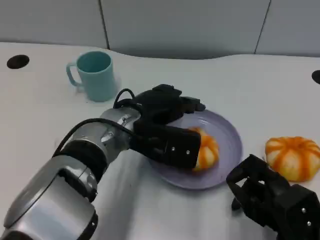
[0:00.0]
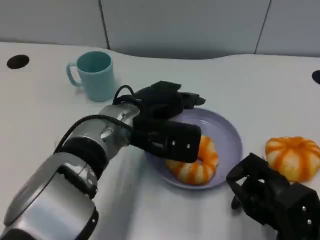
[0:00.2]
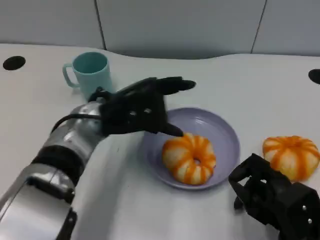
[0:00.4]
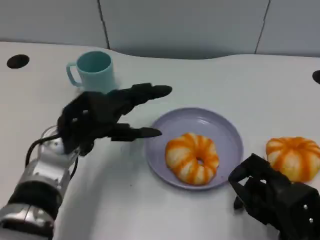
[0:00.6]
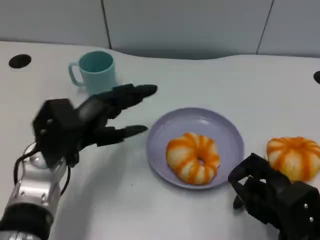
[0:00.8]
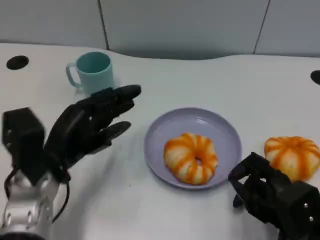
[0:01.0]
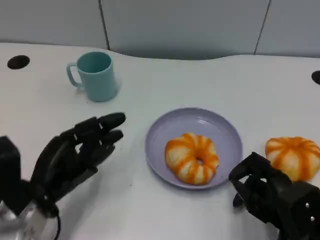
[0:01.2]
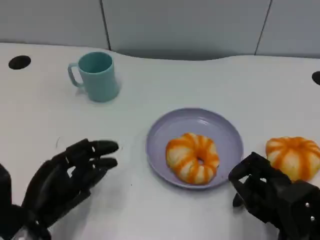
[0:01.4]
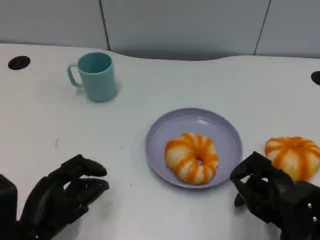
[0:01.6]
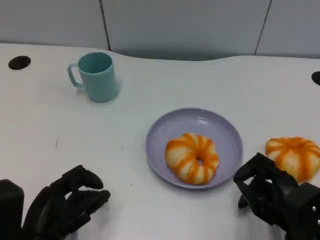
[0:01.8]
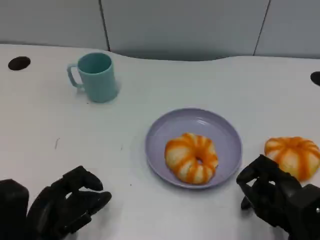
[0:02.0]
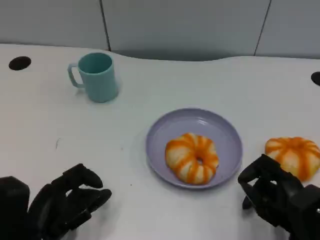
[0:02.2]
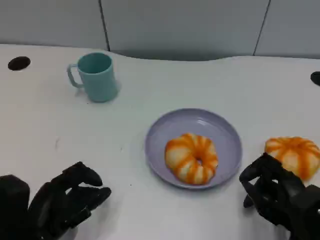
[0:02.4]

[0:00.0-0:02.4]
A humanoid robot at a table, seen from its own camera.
Task of the whole recording: Grasp the bread from the table and place it into the plate.
0:00.0 to 0:01.2: The left hand moves to the left, backward and downward, about 20 cm.
0:01.2 to 0:02.4: The hands make only small movements.

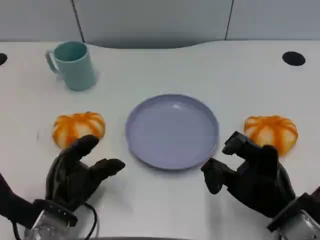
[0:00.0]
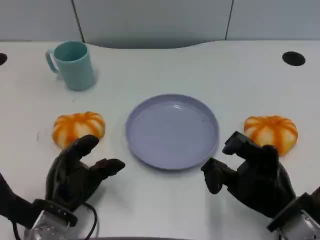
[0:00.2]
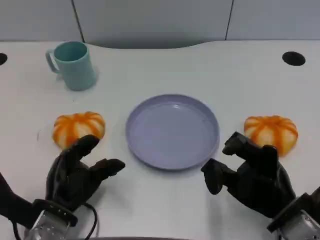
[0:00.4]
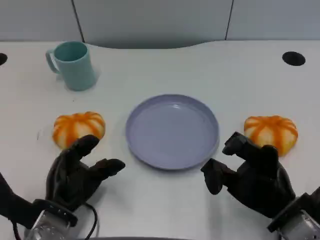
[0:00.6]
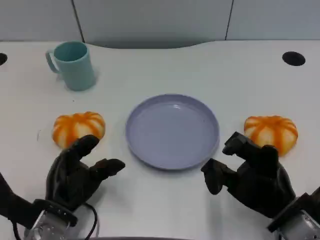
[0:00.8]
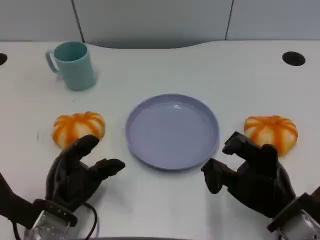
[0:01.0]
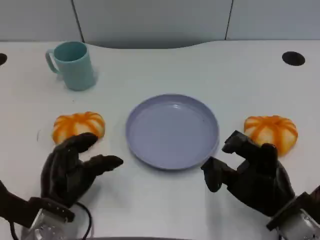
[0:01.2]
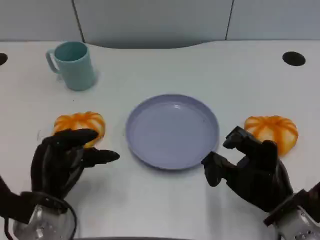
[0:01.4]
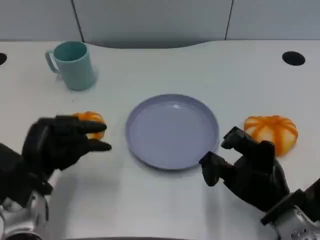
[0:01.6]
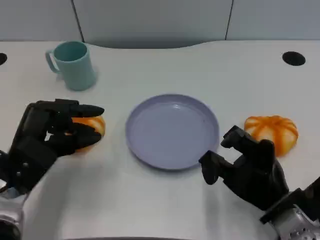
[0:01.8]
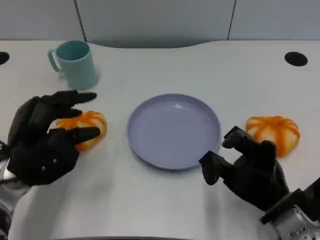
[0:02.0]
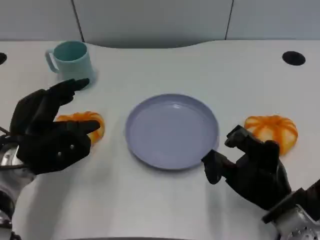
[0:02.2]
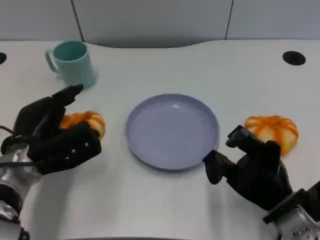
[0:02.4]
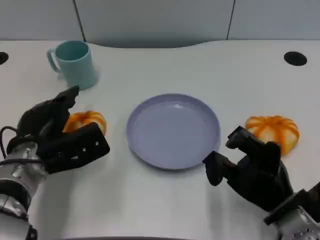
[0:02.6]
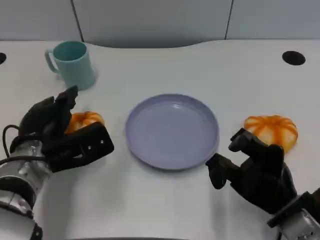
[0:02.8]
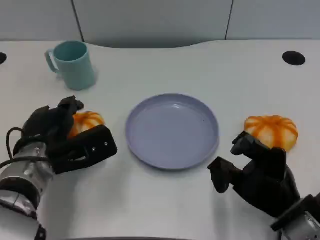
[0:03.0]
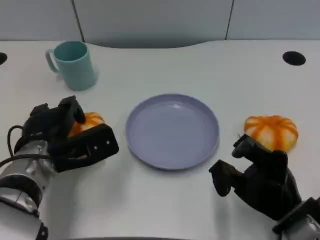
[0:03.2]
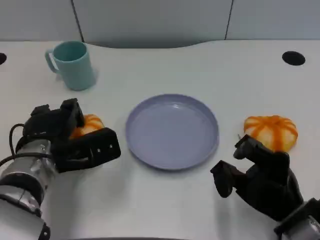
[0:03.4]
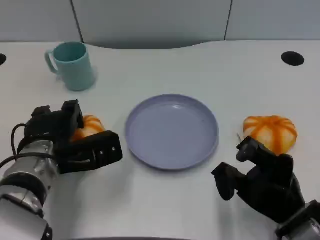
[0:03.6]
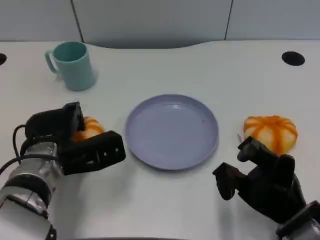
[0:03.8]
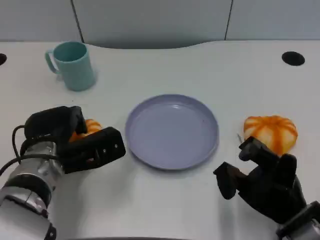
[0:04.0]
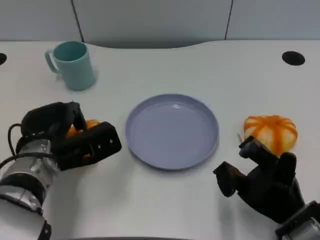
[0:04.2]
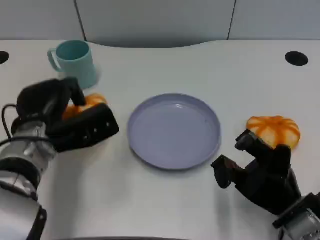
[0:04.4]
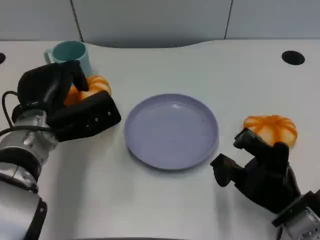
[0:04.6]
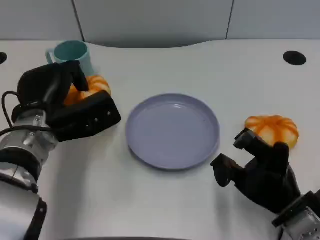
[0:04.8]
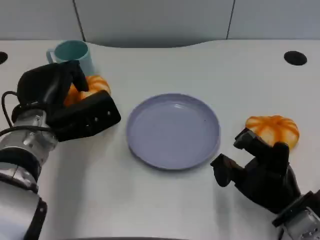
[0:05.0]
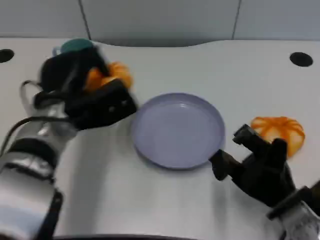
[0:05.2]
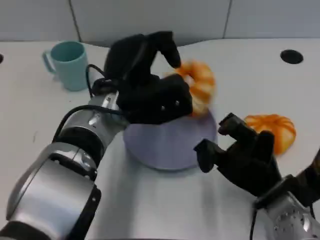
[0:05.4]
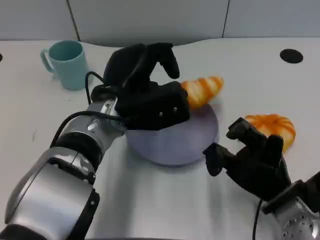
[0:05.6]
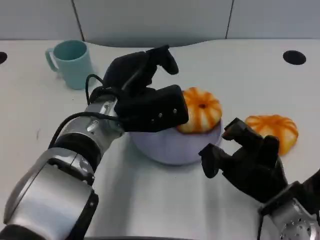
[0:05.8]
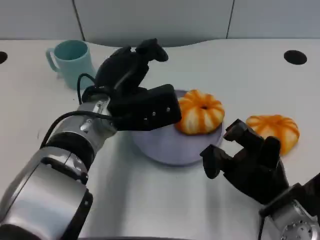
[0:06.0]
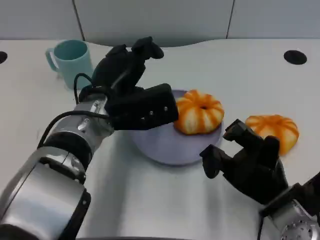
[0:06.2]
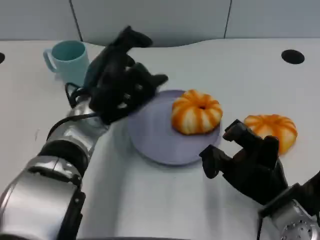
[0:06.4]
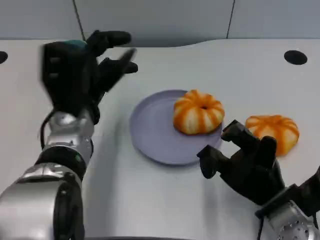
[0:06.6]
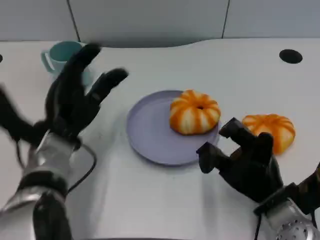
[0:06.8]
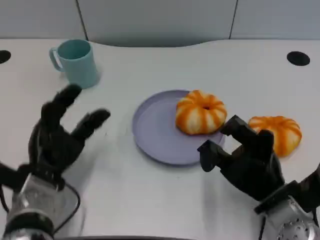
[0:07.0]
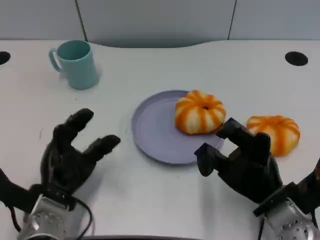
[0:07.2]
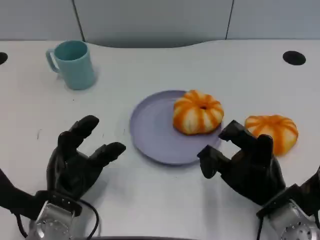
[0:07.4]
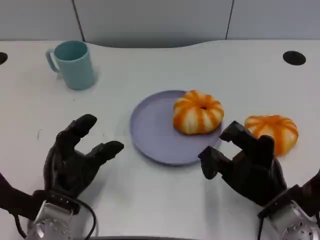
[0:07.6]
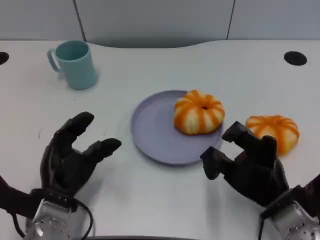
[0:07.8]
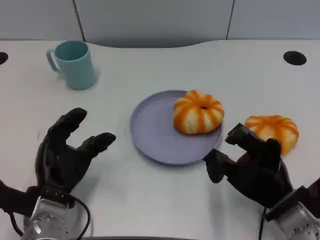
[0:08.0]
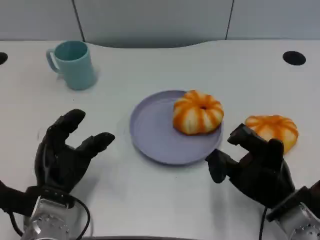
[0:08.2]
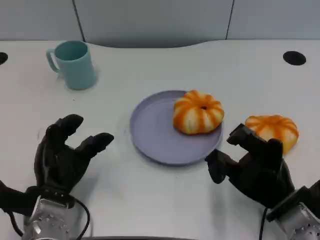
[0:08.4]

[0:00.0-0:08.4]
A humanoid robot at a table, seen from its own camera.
Task of the whole recording: Grasp the bread from the table and place it into the plate.
0:01.4 to 0:02.8: The left hand is displaced forward by about 5 cm.
0:02.8 to 0:04.2: The hands move only a little.
0:04.2 to 0:05.6: The left hand shifts roughly 15 cm to the right and upward.
0:05.6 to 0:07.0: The left hand goes about 15 cm to the left, downward and backward.

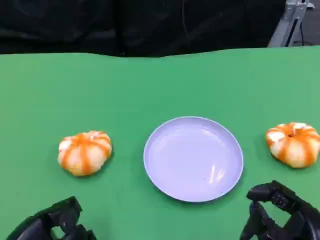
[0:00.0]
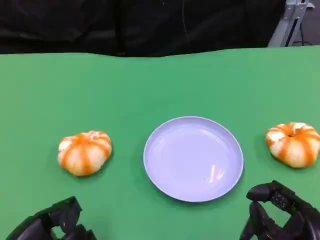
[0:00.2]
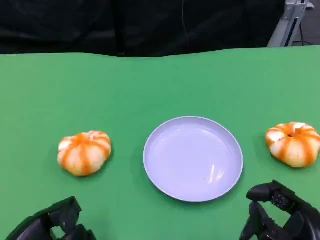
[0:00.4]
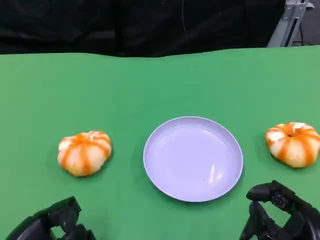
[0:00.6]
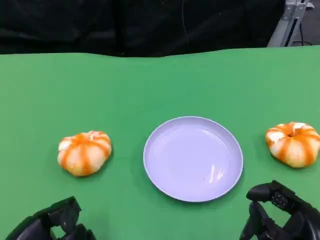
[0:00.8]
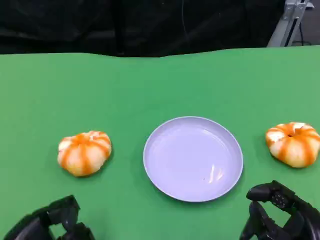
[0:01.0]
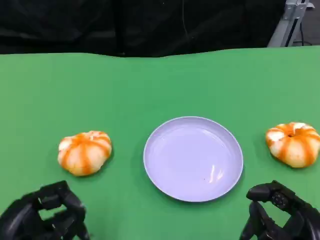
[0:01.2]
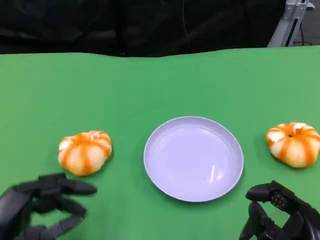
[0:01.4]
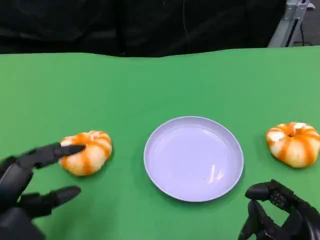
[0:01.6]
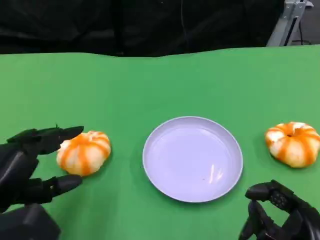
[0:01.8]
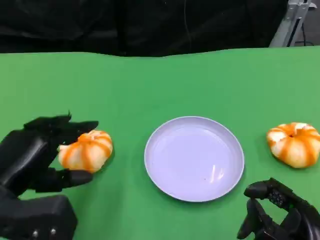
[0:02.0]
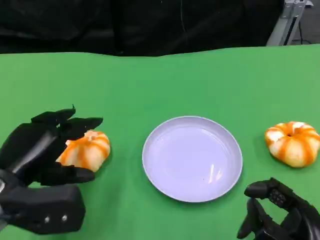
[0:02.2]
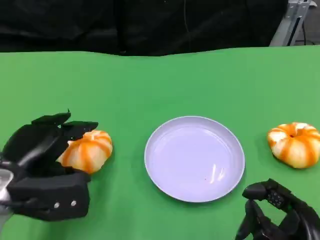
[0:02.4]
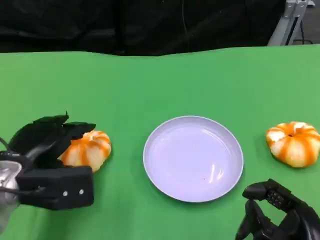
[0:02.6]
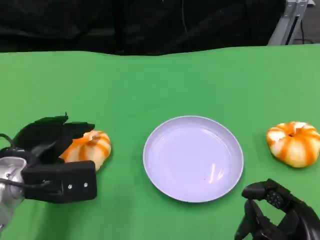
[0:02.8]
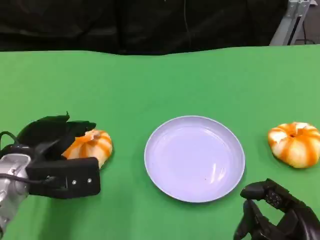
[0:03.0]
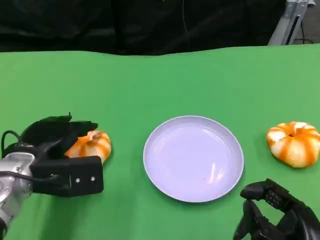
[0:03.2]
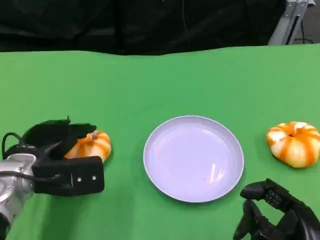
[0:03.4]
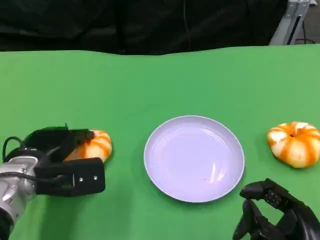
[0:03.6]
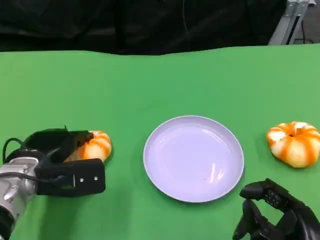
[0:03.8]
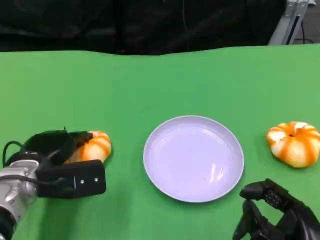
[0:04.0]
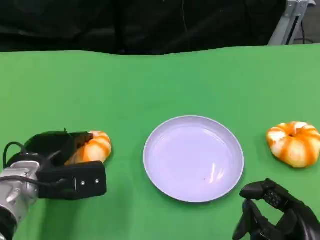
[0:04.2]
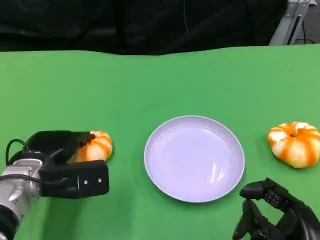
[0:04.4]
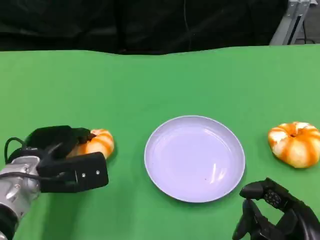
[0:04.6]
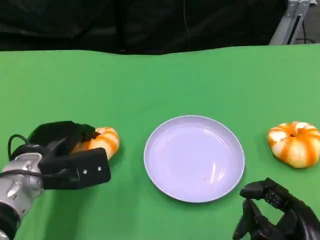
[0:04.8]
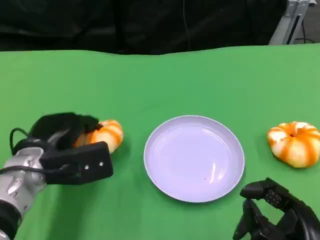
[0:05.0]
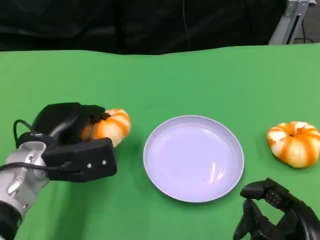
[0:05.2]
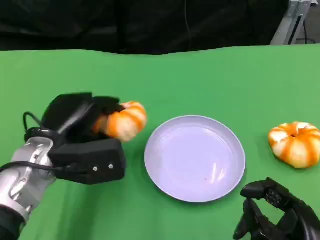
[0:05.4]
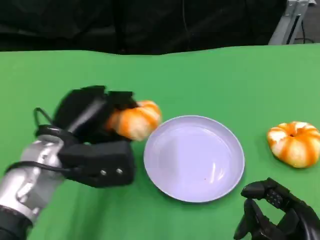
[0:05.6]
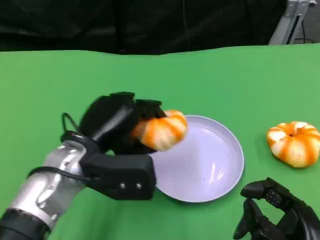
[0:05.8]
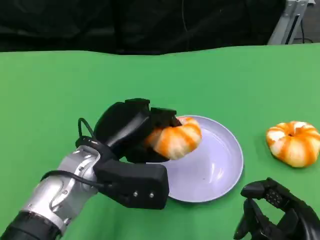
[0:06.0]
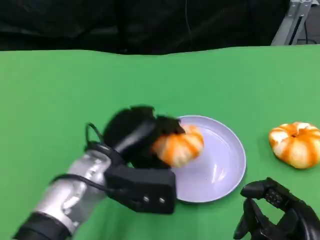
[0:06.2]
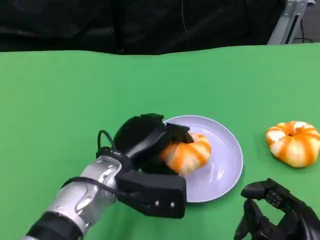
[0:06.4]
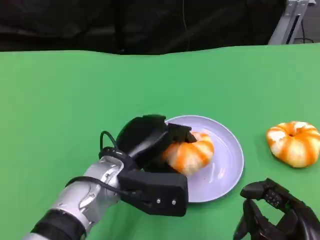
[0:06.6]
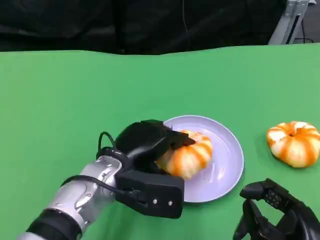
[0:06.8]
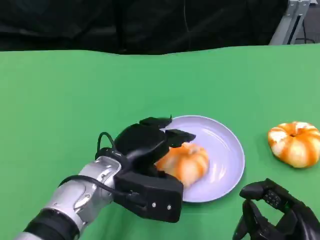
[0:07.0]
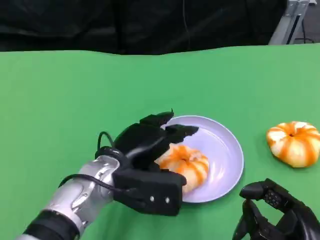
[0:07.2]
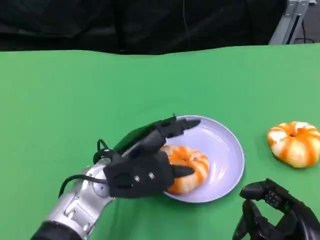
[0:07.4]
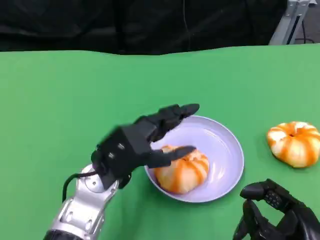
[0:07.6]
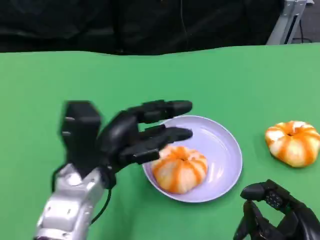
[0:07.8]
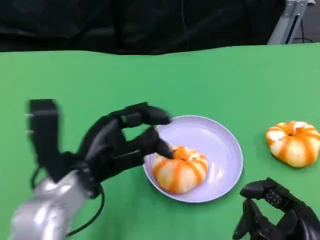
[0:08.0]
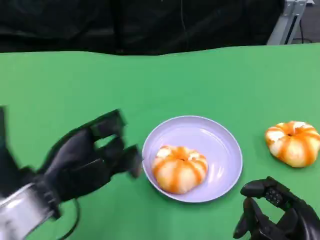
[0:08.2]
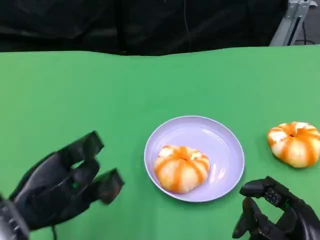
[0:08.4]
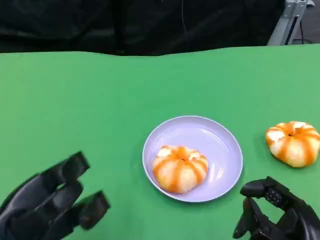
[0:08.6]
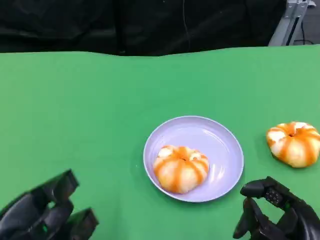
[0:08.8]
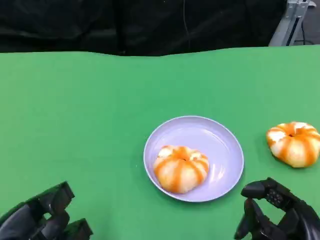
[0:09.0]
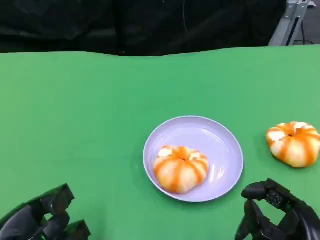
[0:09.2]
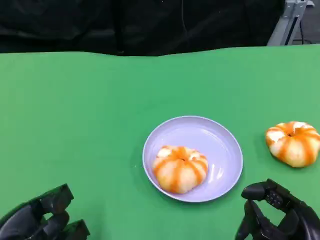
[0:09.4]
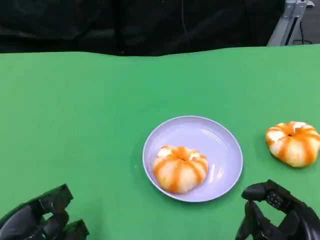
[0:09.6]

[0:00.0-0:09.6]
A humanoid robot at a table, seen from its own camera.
Task of the whole recording: Grasp the bread from the table and place it into the plate.
0:00.0 to 0:01.6: The left hand moves upward, some 5 cm.
0:01.6 to 0:03.2: The left hand shifts about 10 cm forward.
0:03.2 to 0:04.8: The hands move only a little.
0:04.8 to 0:06.4: The left hand is displaced to the right by some 10 cm.
0:06.4 to 0:08.0: The left hand is displaced to the left by roughly 10 cm.
0:08.0 to 0:09.6: The left hand moves to the left, backward and downward, approximately 15 cm.

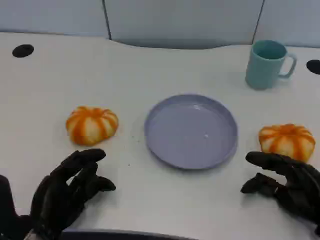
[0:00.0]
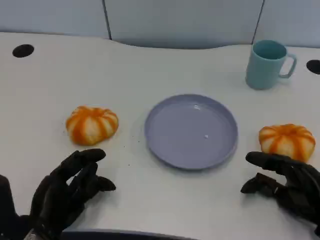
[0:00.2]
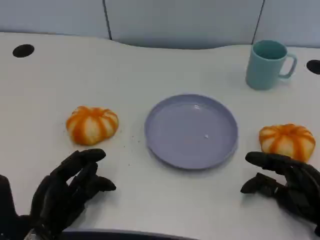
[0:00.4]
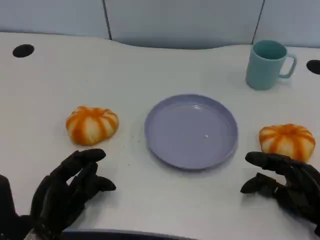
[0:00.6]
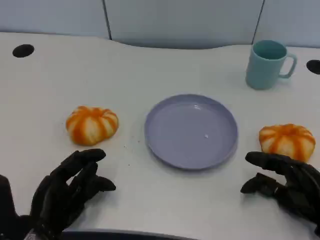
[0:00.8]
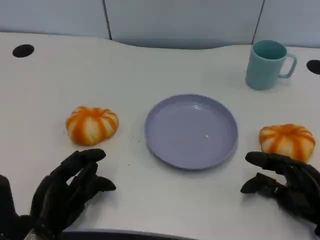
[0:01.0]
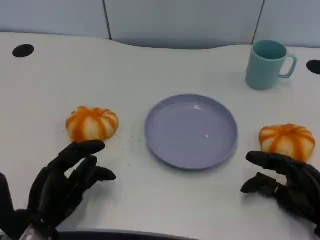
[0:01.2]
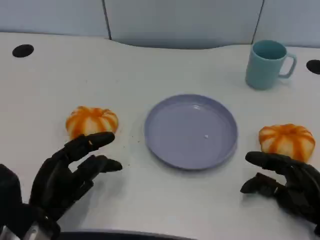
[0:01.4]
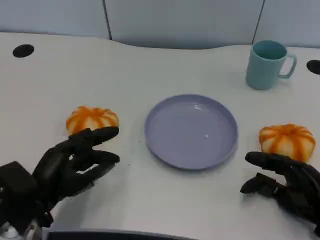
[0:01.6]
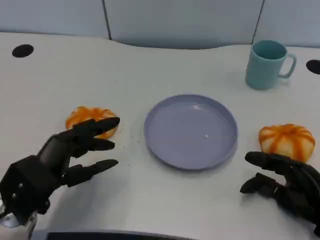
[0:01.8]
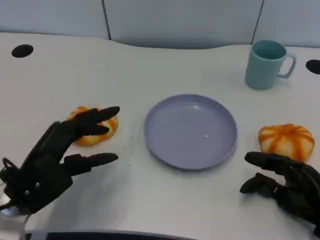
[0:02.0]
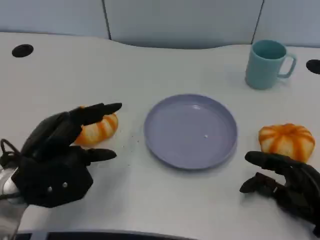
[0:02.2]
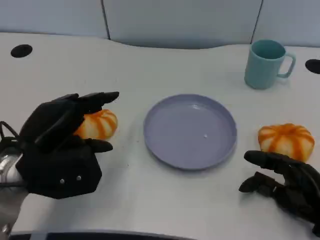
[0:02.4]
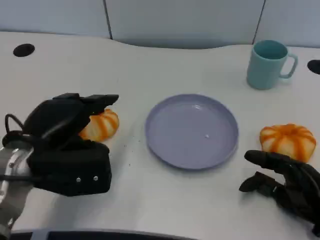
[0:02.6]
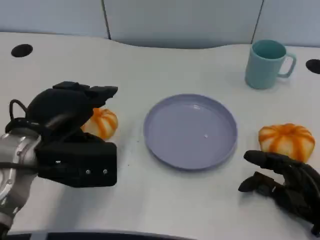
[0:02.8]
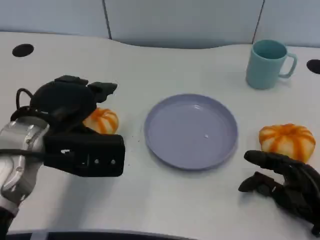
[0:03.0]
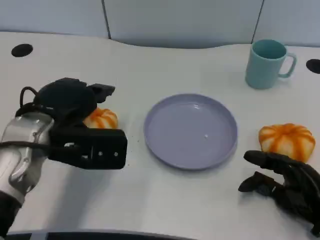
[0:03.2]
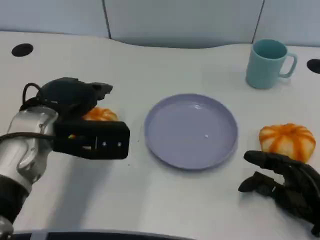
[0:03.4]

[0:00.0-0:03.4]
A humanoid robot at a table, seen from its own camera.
Task of the whole recording: Grasp the bread from the table and place it into the plate.
0:01.6 to 0:03.4: The left hand shifts approximately 15 cm upward and forward.
